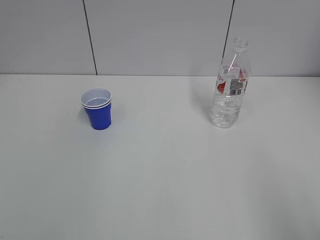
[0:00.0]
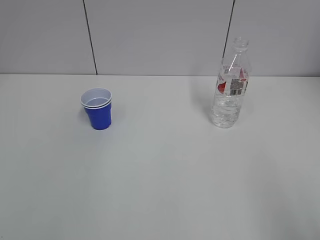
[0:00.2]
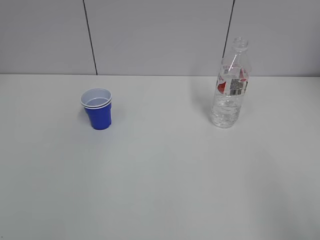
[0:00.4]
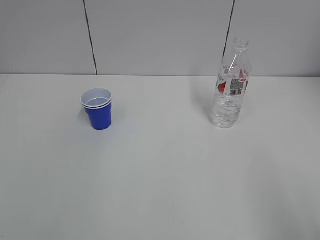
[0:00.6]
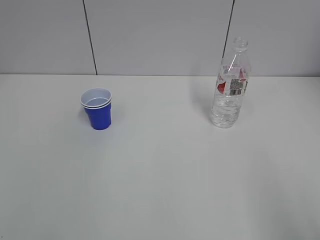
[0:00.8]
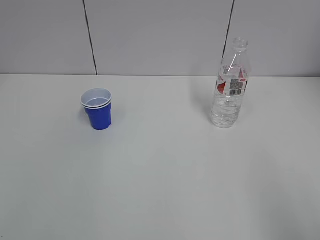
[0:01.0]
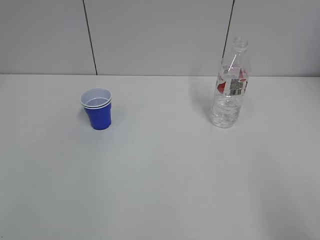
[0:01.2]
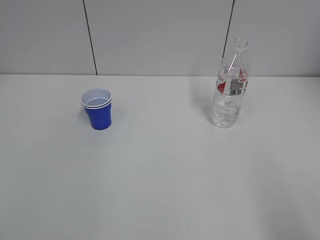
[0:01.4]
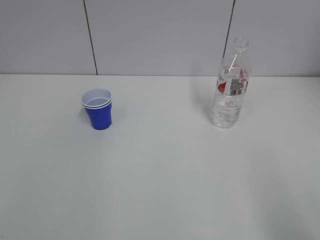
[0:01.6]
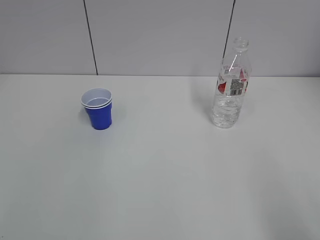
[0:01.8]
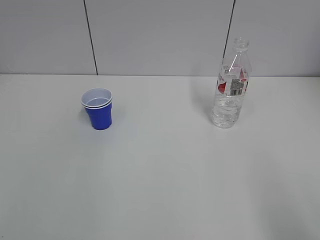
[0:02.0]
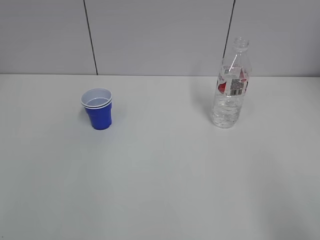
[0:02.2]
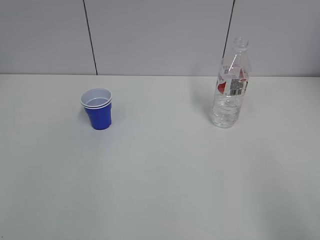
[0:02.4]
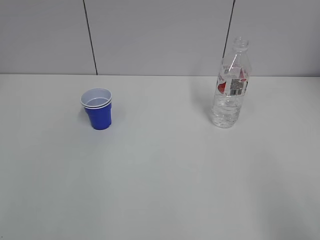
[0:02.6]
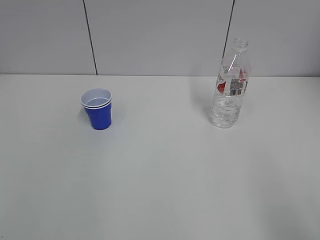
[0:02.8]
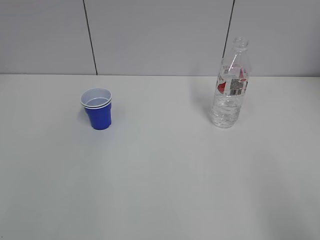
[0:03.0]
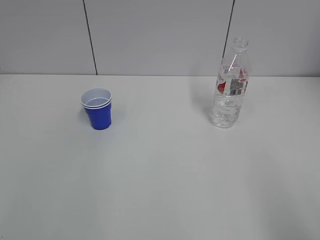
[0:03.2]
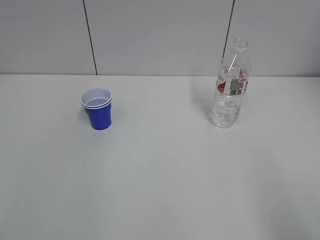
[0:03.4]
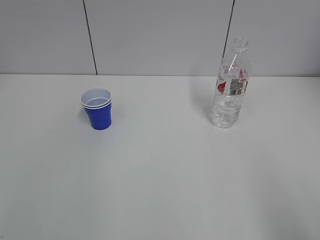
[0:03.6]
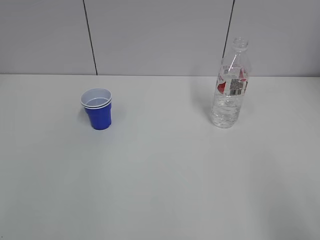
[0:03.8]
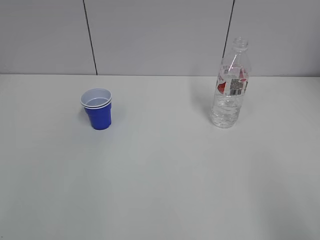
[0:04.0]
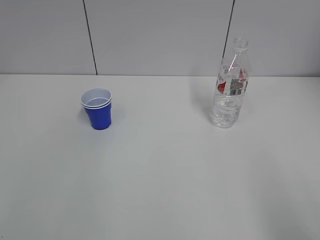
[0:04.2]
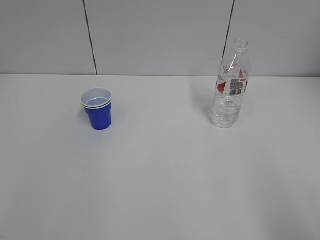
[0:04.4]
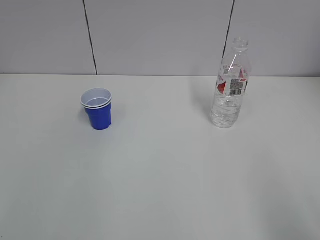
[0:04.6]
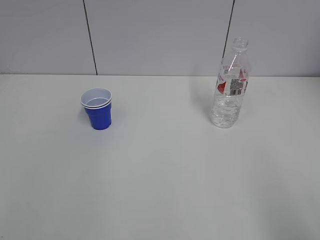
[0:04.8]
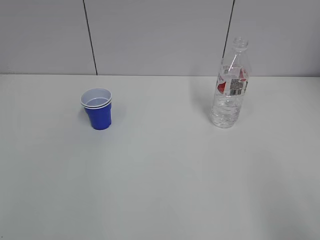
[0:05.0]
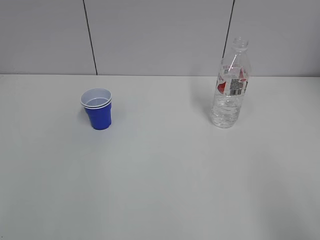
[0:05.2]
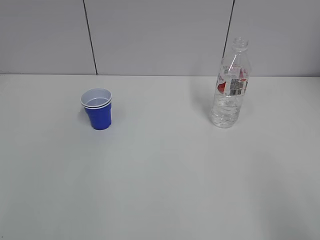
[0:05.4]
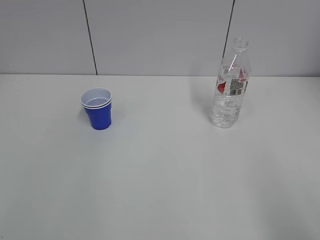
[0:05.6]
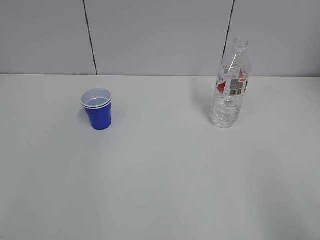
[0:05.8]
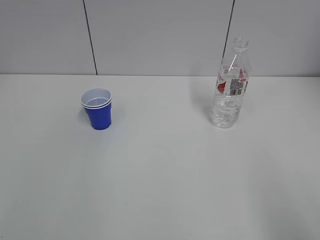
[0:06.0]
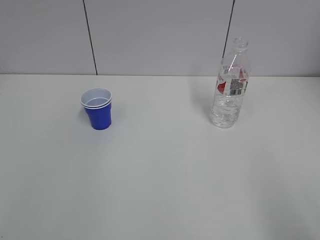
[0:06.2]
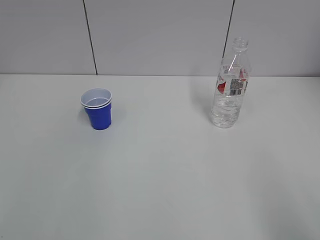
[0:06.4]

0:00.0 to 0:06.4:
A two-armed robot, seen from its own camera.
0:01.6 to 0:06.4: Both grippers stay about where they are.
